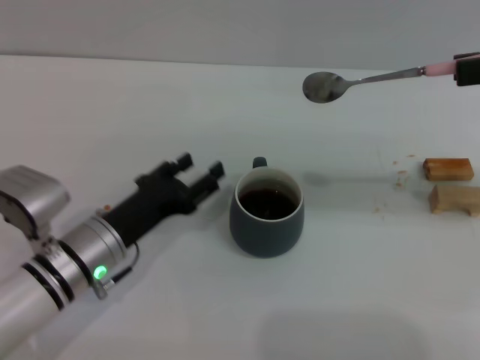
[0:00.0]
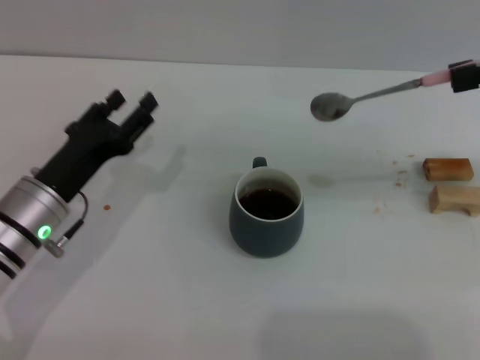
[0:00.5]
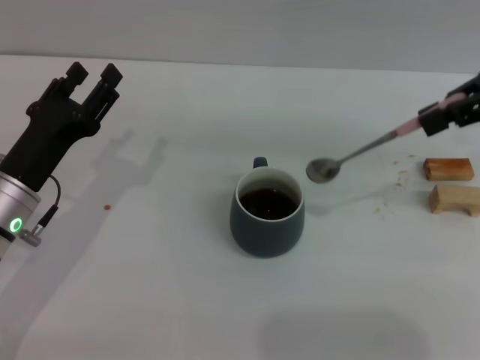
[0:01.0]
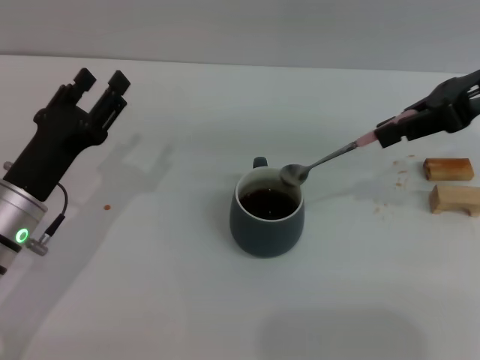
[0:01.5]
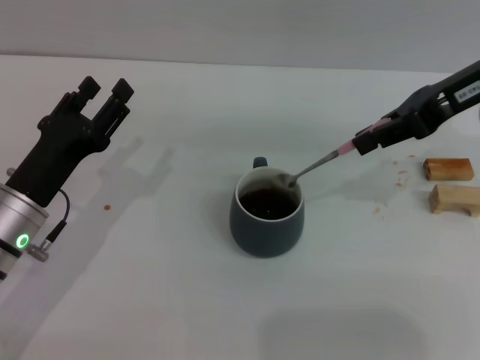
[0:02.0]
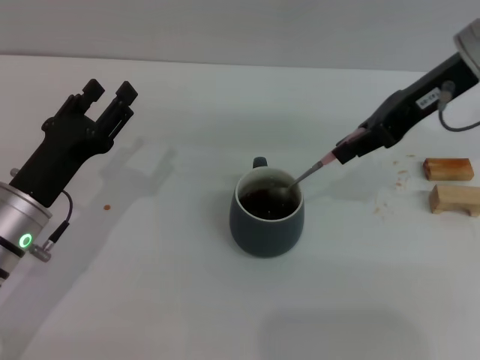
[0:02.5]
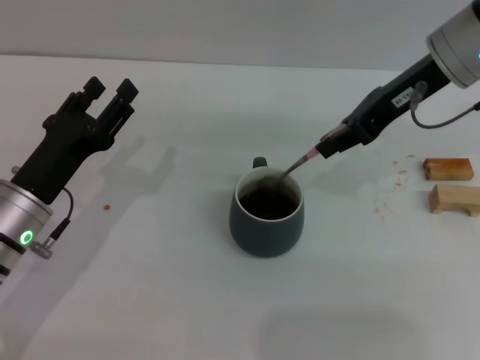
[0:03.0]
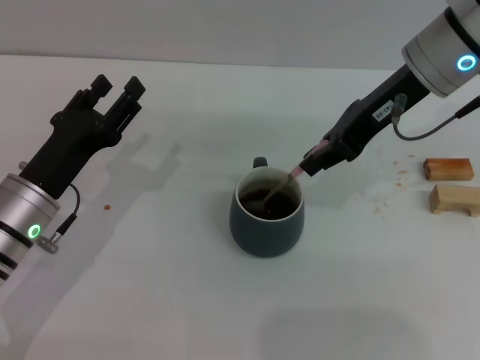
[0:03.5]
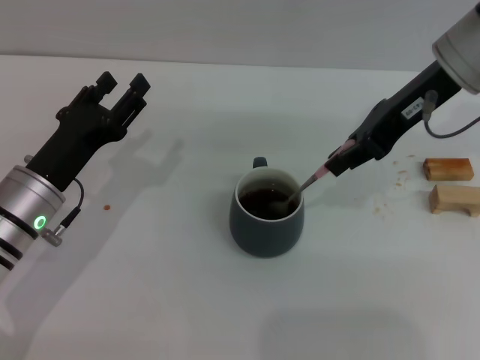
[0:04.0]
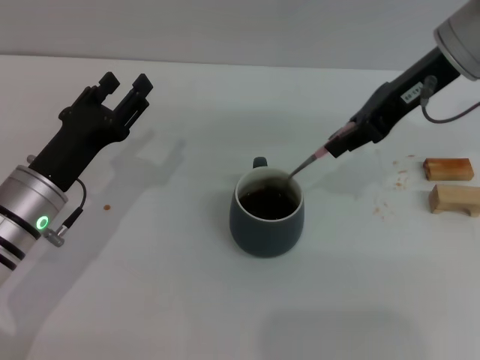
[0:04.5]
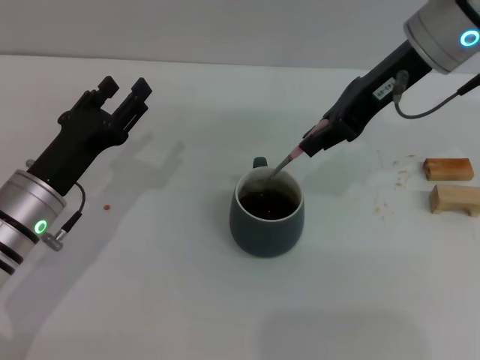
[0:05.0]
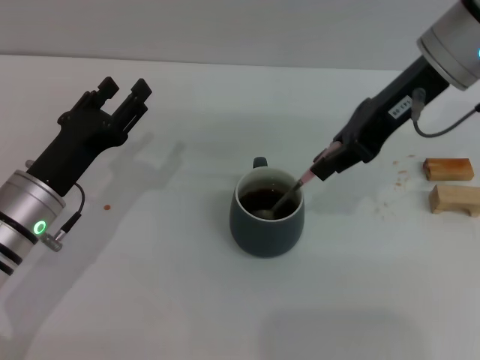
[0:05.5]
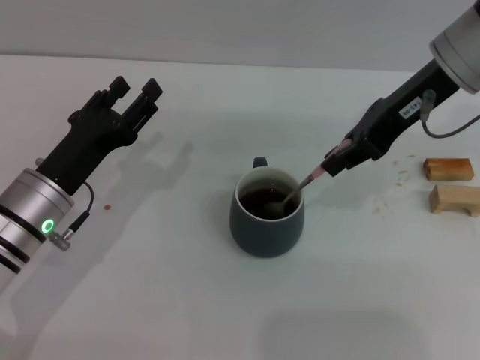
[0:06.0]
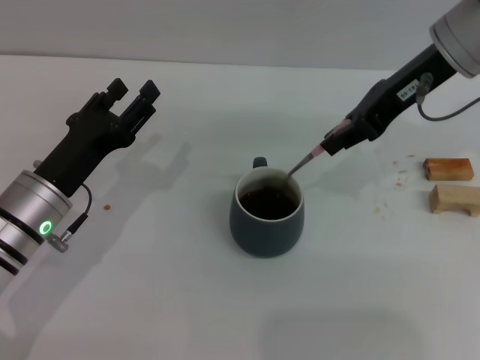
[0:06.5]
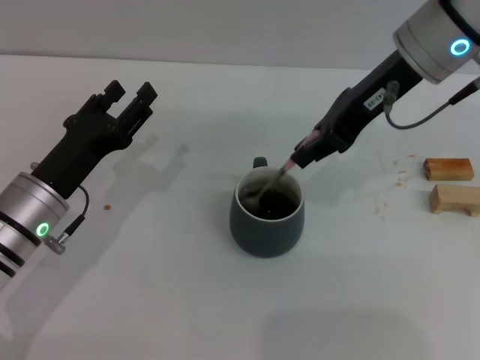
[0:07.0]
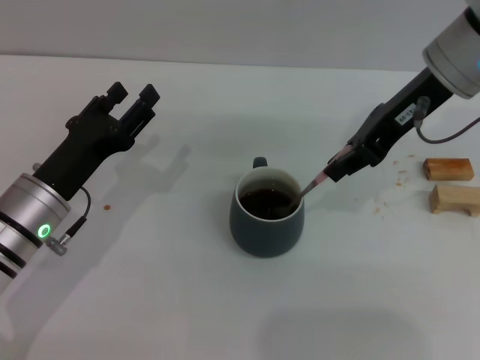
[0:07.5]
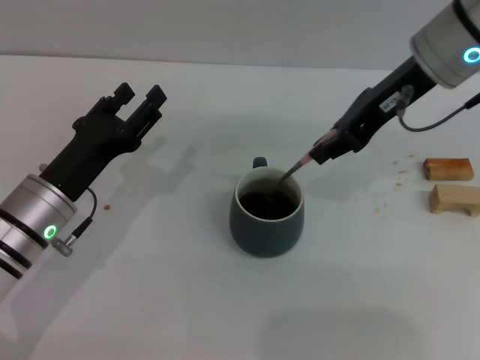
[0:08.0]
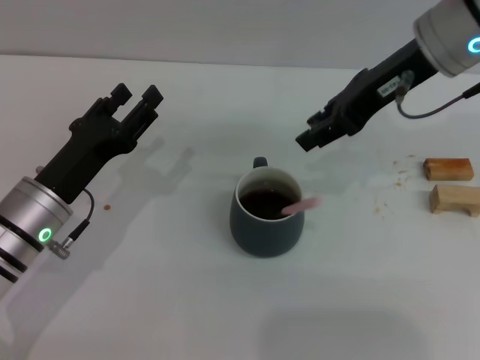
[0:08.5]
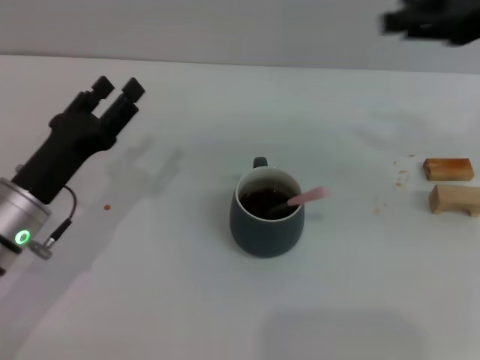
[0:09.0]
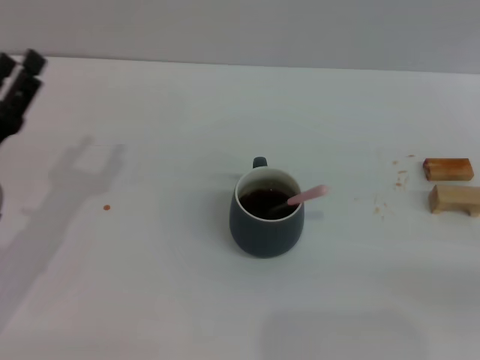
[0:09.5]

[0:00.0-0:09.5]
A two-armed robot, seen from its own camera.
Task of the whole recording: Move the grey cup to the center, lift the pink spoon, stir it three times in the cup, and put the spoon into the cup.
Step, 0:00.5 to 0:08.0: Stir the coffee in the cup with the right gripper.
0:00.0 to 0:02.0: The left gripper is displaced to the left by approximately 5 cm; the right gripper shifts roughly 10 cm to the left and forward.
0:02.0 to 0:04.0: The right gripper goes some 5 cm to the left.
0:04.0 to 0:07.5: The grippers make only small movements.
0:07.5 to 0:09.5: The left gripper goes roughly 5 cm to the left. The right gripper heads to the right and backward, covering some 30 cm, and opens its fingers.
